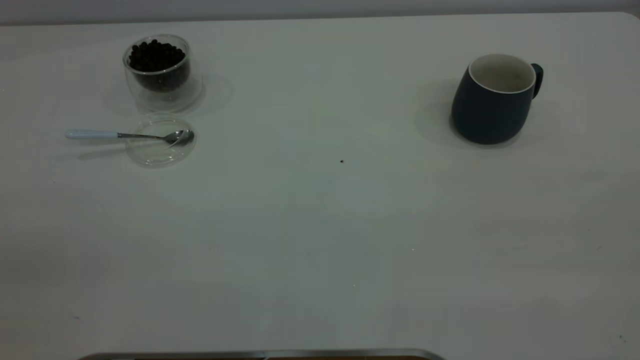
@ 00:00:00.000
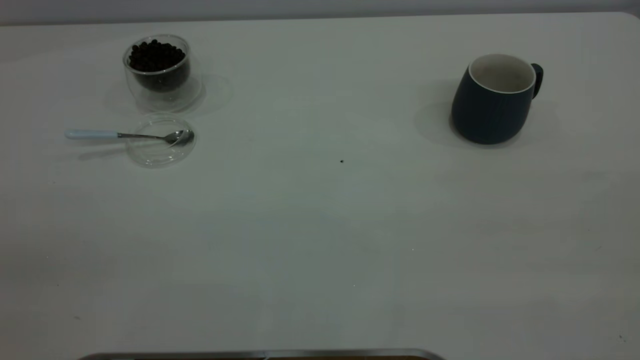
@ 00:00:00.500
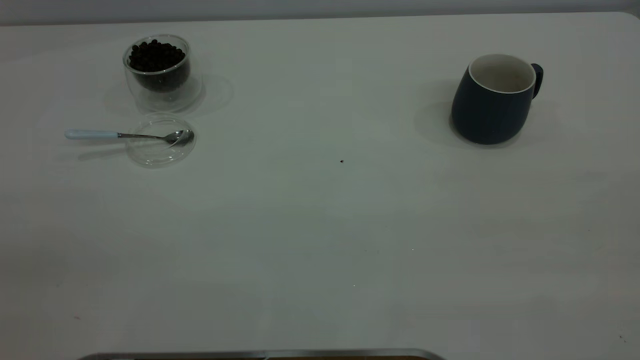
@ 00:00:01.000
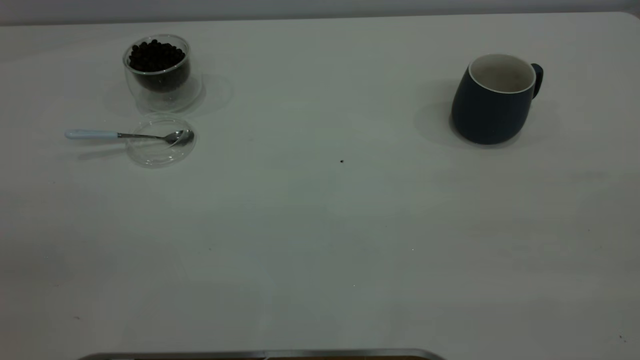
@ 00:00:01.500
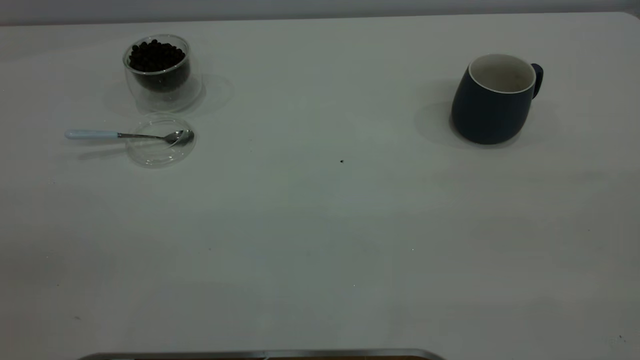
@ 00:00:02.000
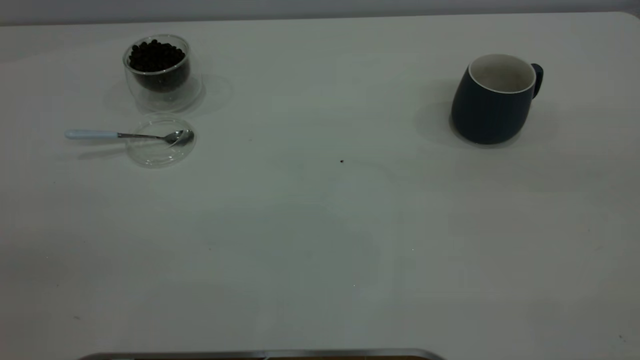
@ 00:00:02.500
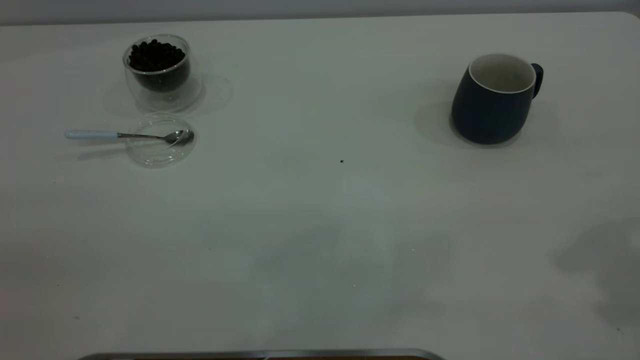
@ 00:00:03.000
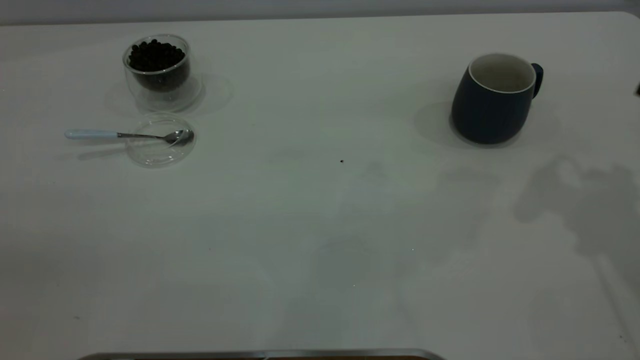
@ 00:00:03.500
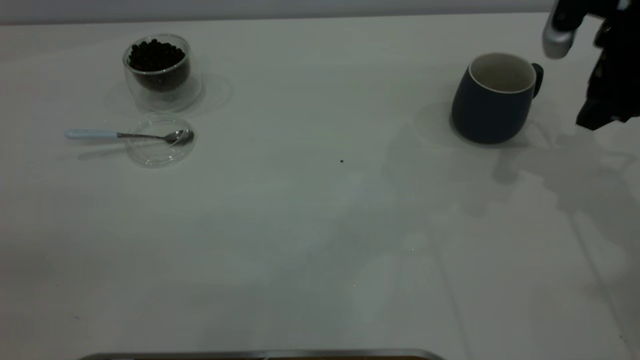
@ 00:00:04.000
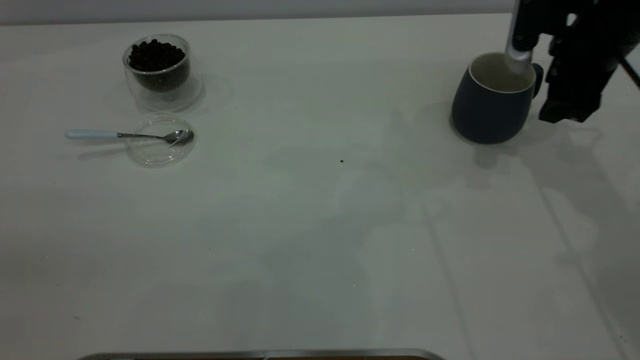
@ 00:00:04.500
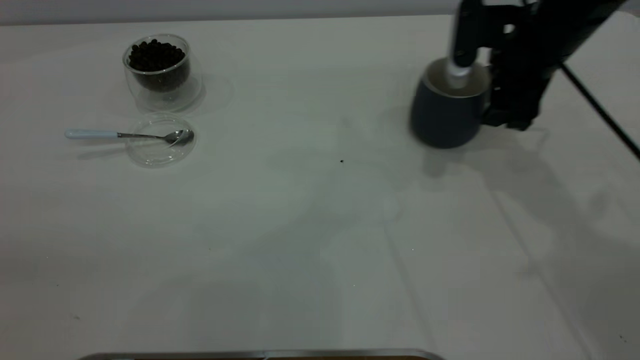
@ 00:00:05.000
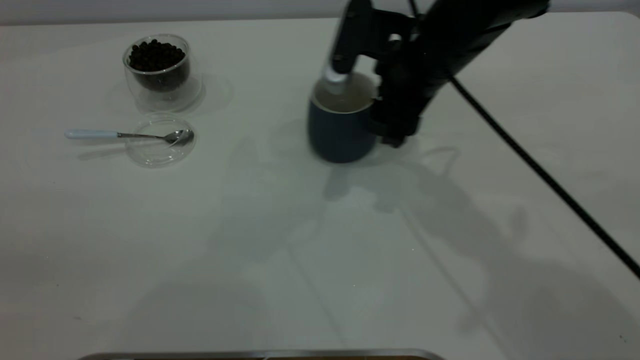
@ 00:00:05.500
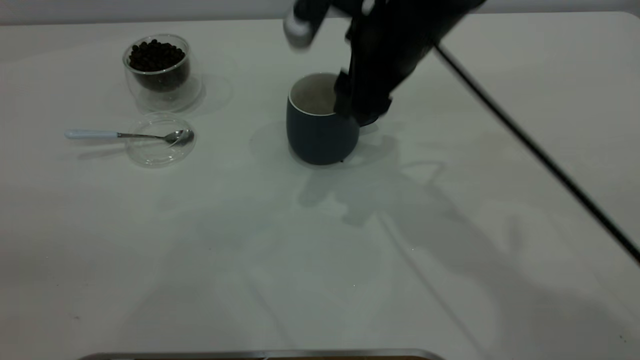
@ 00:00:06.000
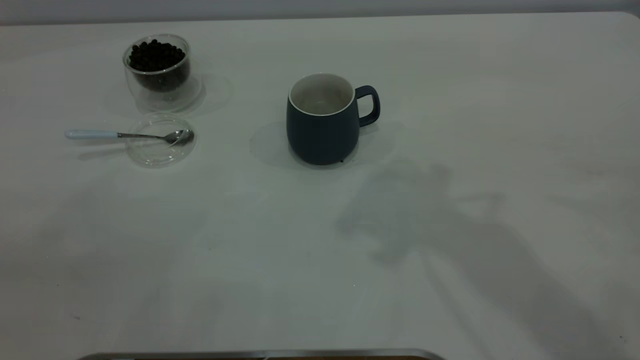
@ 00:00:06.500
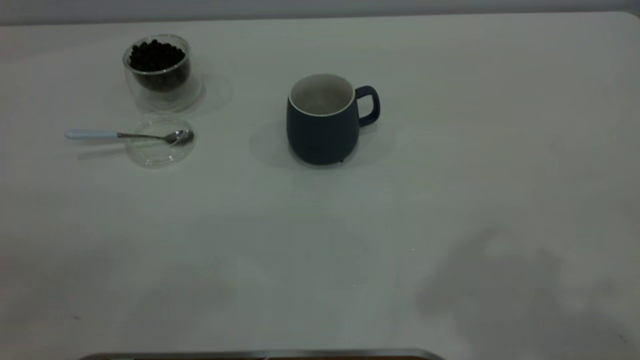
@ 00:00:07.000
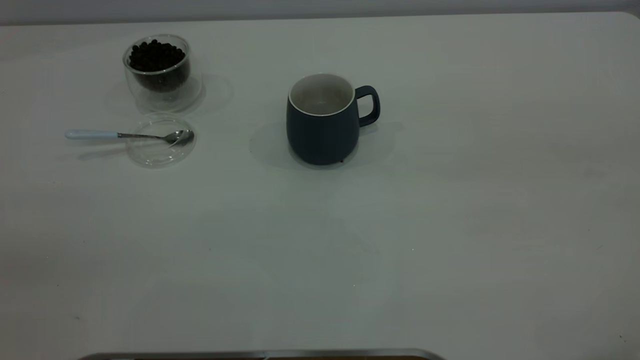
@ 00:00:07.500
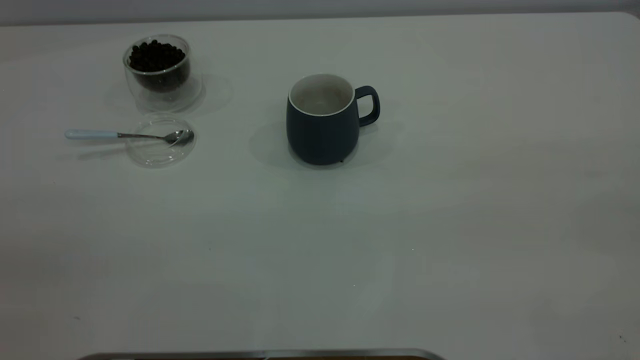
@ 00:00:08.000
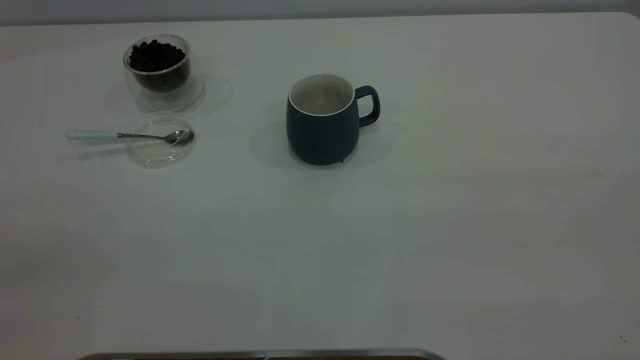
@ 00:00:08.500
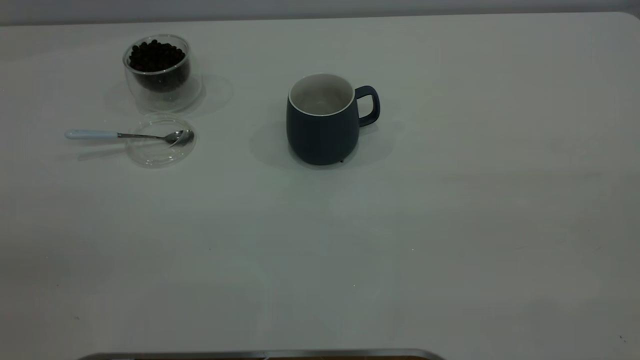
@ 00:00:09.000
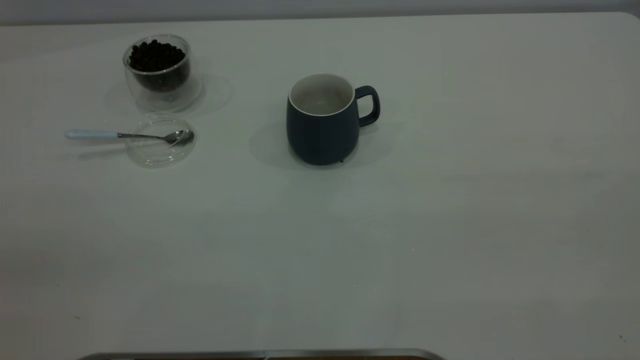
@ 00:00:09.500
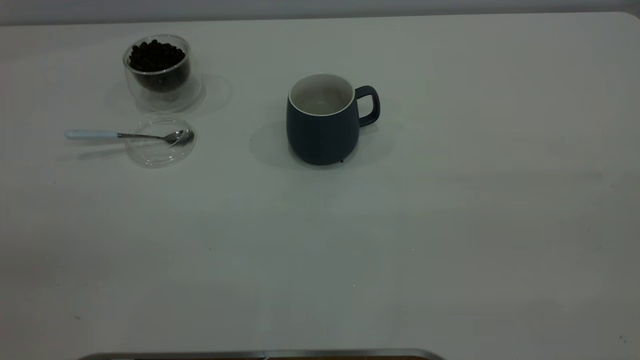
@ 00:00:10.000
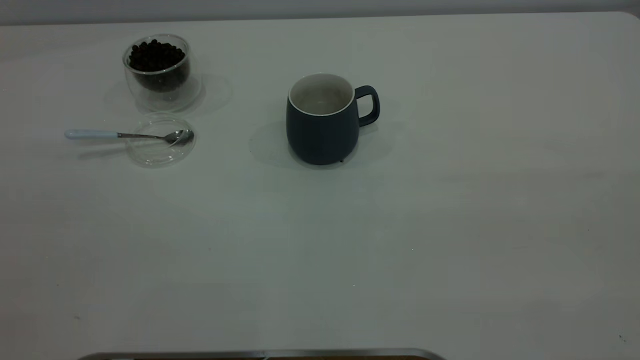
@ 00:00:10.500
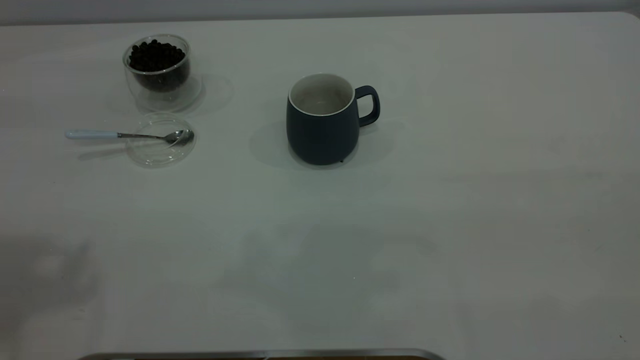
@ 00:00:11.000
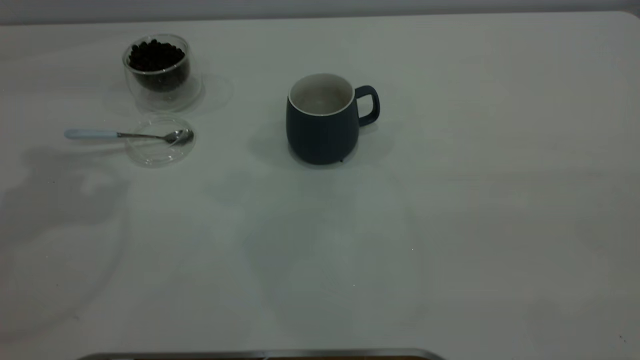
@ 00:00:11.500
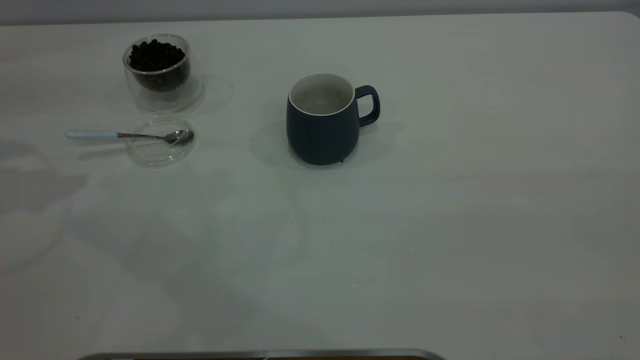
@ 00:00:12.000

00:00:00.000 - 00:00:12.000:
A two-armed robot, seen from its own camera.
Task of the whole recording: the right gripper place the grey cup in the center of the table, the left gripper take the blue spoon from the cup lid and scoop out the coffee beans from the coffee cup and put them into the grey cup, the left gripper put the spoon back into the cup lid.
Step, 00:00:00.000 - 00:00:06.000: Move the cup to the center of view.
00:00:00.000 - 00:00:02.000: Both grippers stay about where they are.
00:00:02.000 - 00:00:04.000: The right gripper goes roughly 40 cm forward and downward, and opens.
00:00:04.000 - 00:00:06.000: The right gripper travels to the left by some 20 cm.
00:00:06.000 - 00:00:08.000: The right gripper shifts about 50 cm backward, to the right and upward.

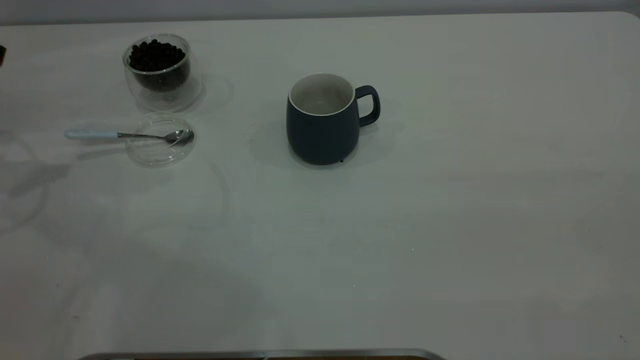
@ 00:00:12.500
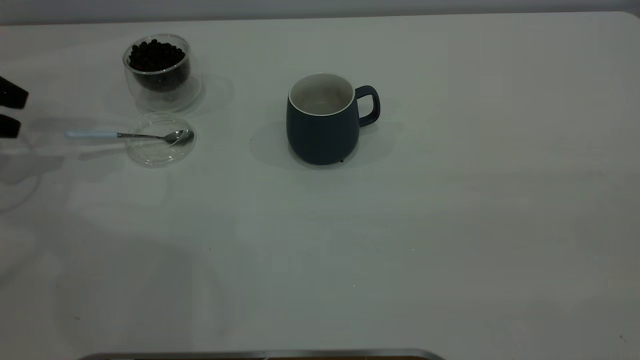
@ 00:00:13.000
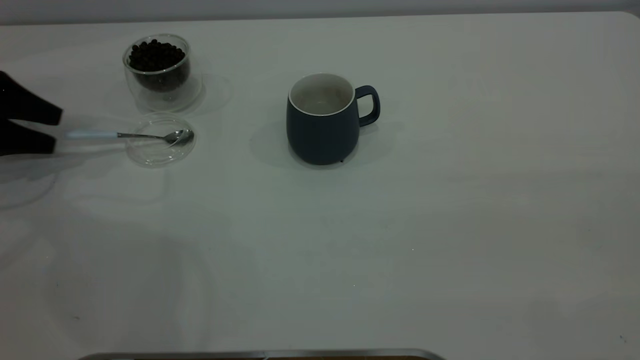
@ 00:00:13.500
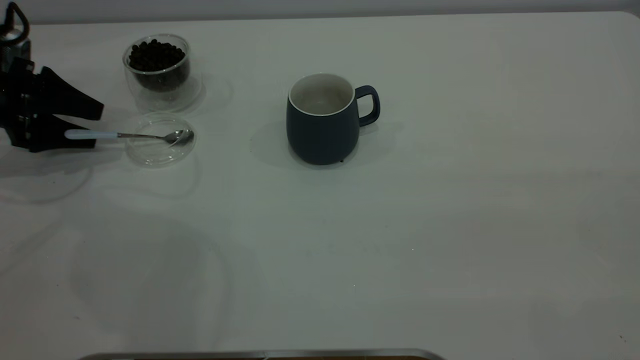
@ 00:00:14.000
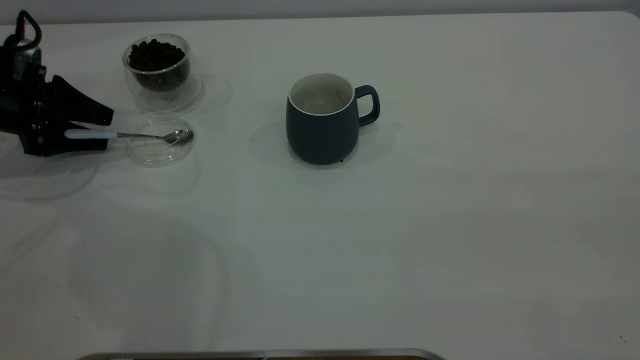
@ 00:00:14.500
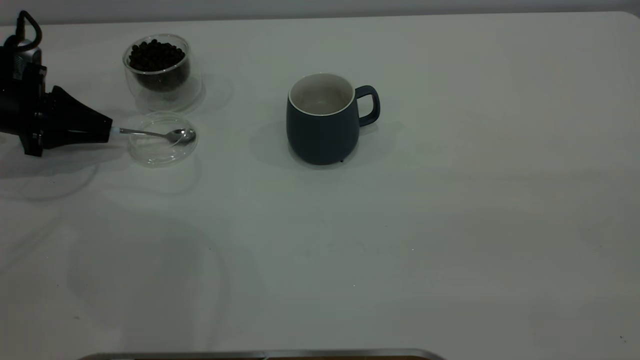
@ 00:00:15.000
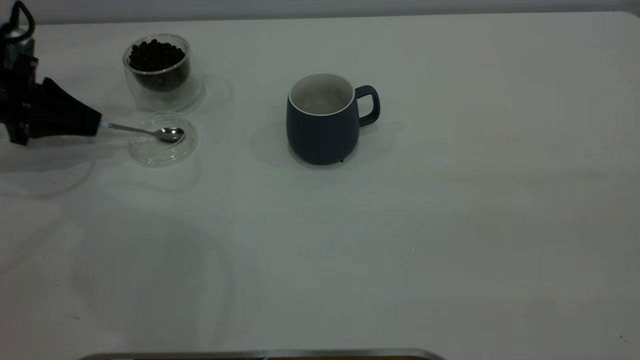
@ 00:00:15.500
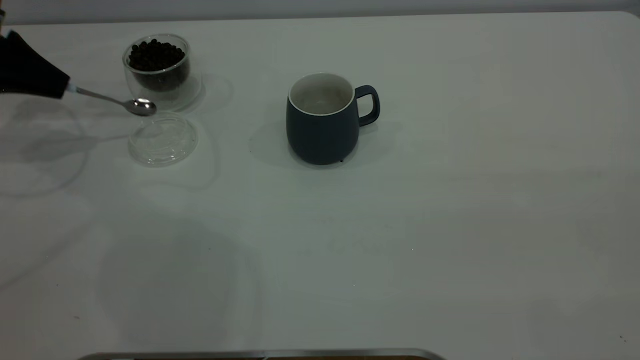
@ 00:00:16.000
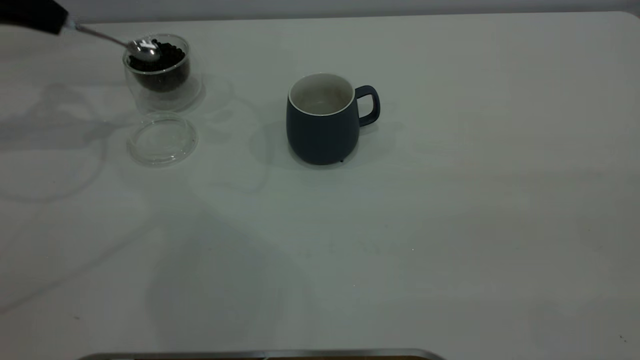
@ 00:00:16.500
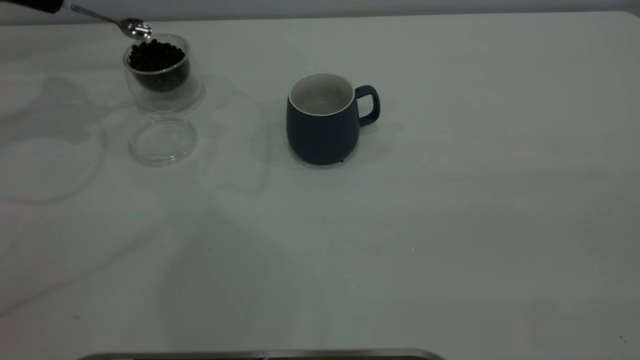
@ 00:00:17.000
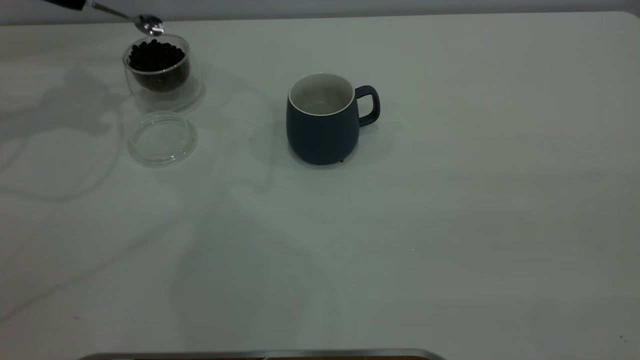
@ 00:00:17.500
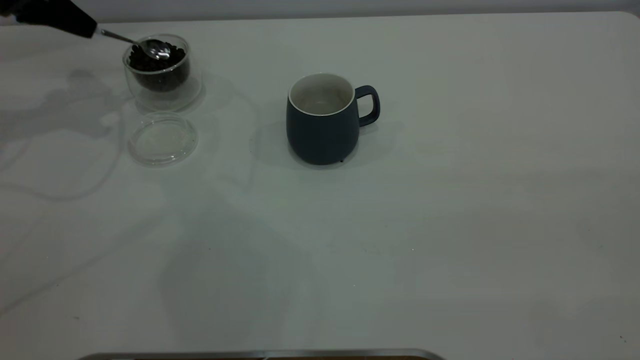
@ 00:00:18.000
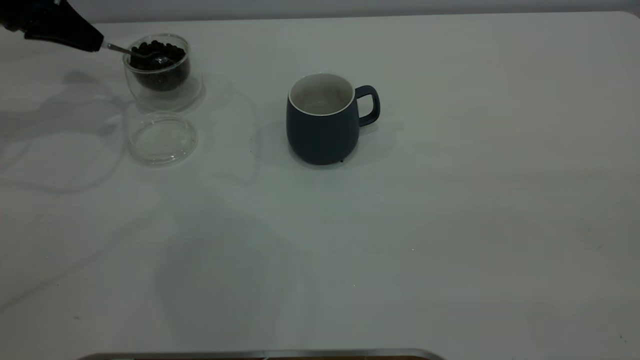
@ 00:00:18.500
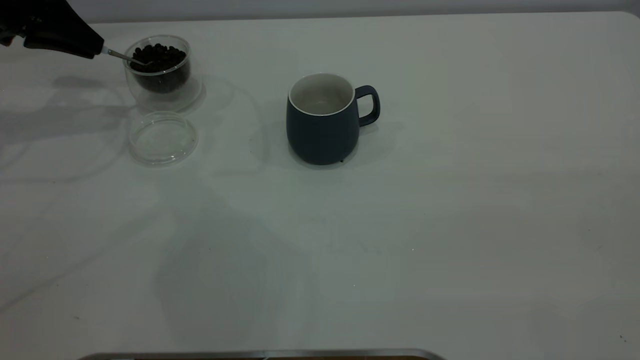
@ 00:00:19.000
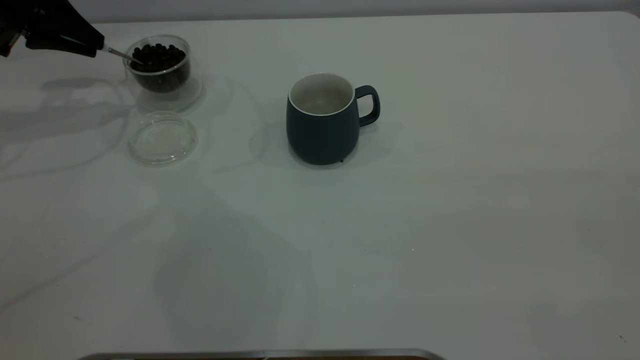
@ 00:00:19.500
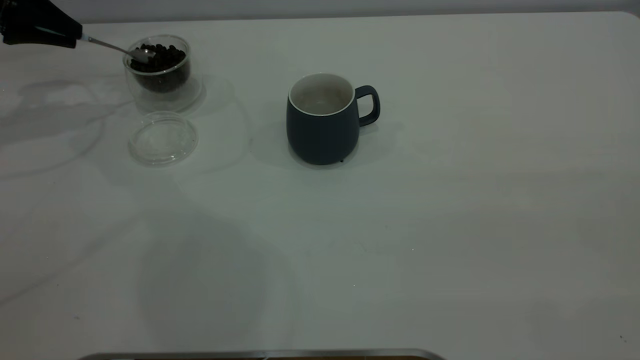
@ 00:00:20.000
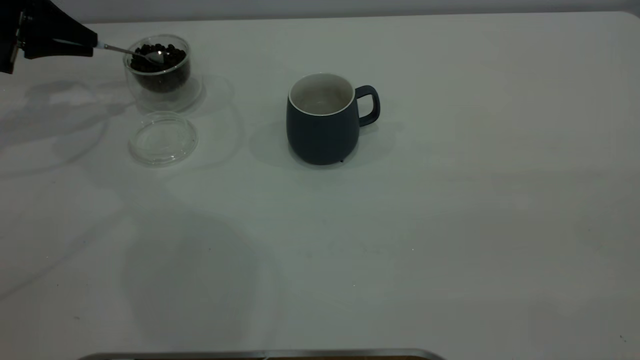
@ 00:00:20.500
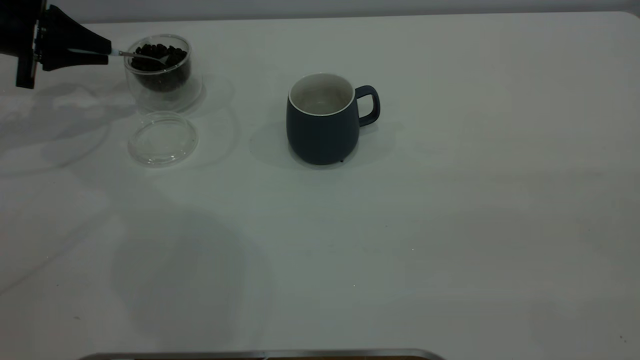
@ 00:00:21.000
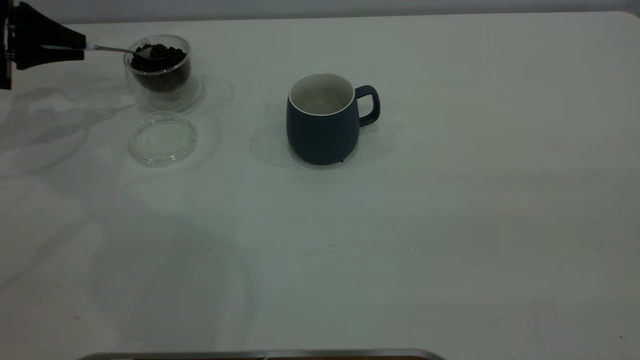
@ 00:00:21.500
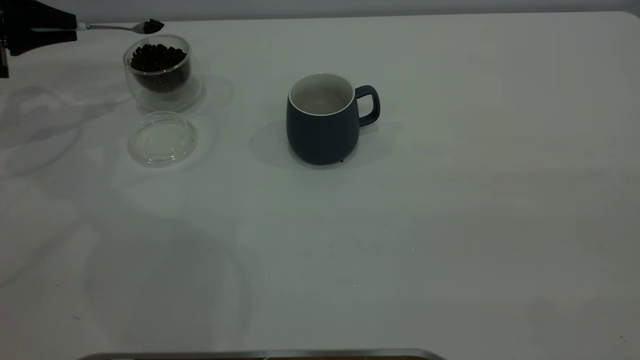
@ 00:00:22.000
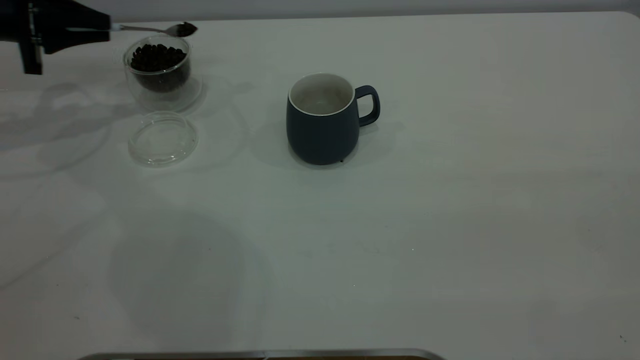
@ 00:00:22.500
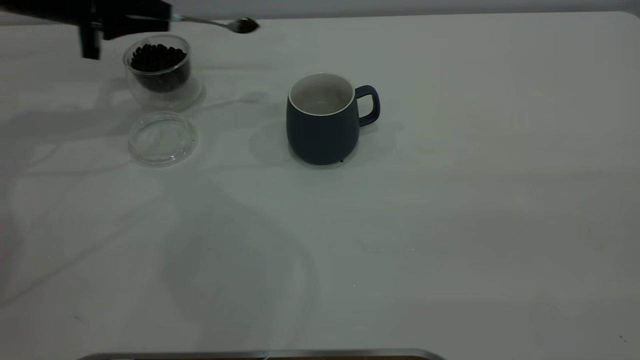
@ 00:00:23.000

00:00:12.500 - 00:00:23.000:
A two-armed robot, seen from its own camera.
Task of the whole recording: the right gripper place the grey cup in the center of the table, the left gripper take the blue spoon from the cup lid and scoop out the coffee beans from the coffee cup and put them into the grey cup, the left gripper put the spoon back into the cup lid.
Step, 00:00:12.500 - 00:00:16.500: Pick up the spoon.
00:00:12.500 - 00:00:14.500: The left gripper is displaced downward by approximately 10 cm.
00:00:14.500 - 00:00:16.500: The left gripper heads upward, covering some 15 cm, and closes up.
00:00:16.500 - 00:00:19.000: The left gripper moves some 5 cm.
00:00:21.000 - 00:00:23.000: The left gripper is displaced to the right by about 10 cm.
